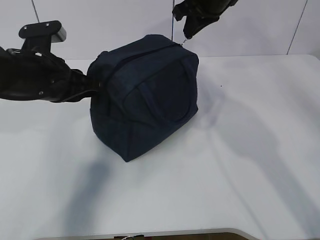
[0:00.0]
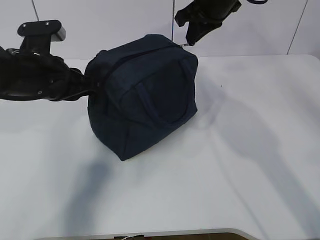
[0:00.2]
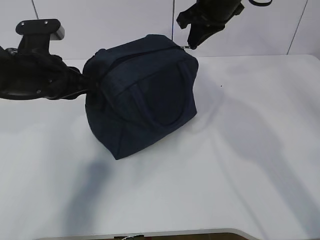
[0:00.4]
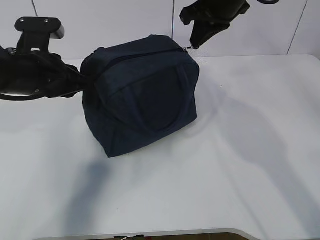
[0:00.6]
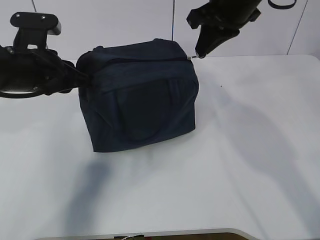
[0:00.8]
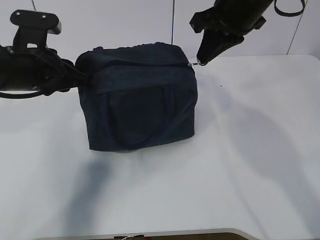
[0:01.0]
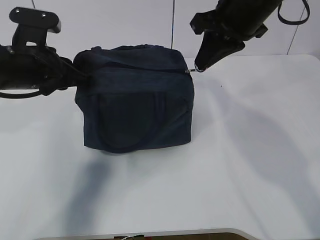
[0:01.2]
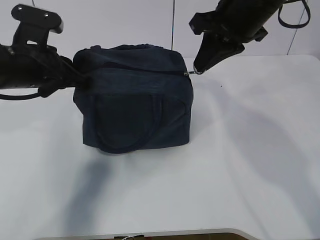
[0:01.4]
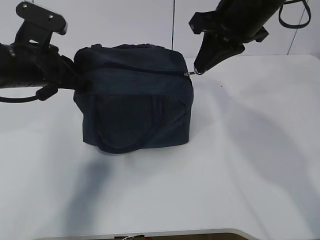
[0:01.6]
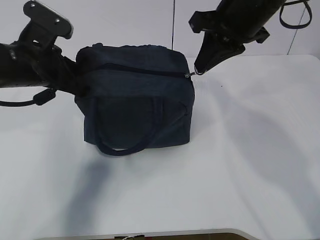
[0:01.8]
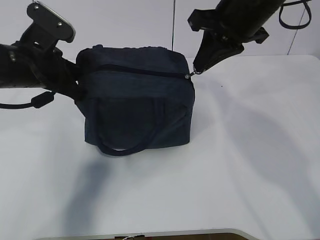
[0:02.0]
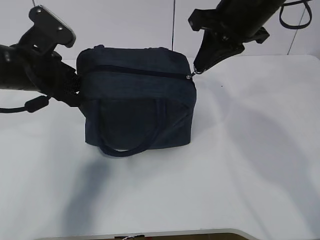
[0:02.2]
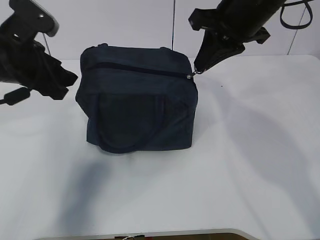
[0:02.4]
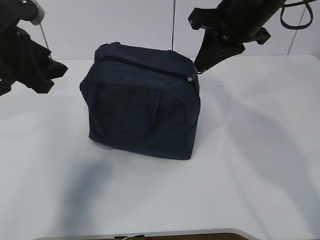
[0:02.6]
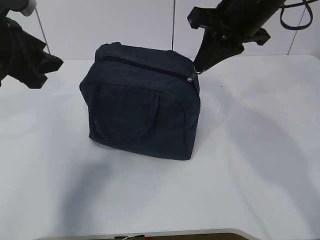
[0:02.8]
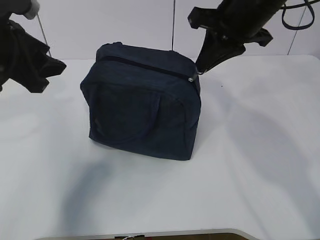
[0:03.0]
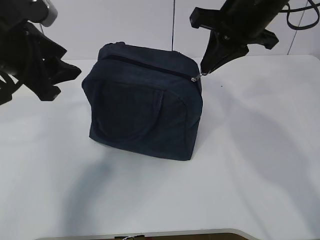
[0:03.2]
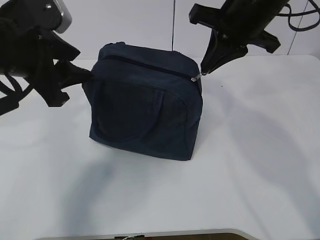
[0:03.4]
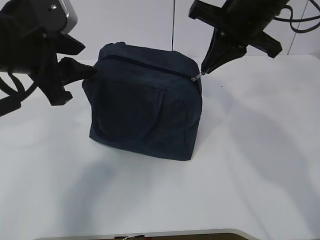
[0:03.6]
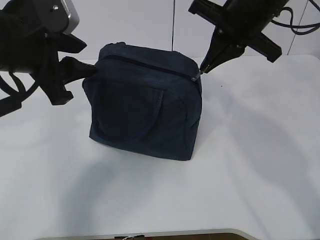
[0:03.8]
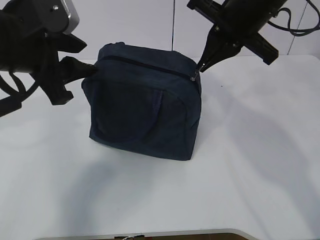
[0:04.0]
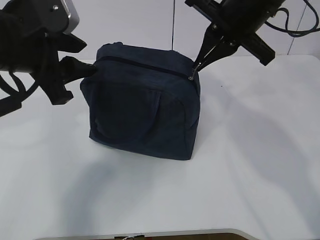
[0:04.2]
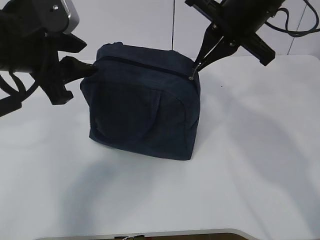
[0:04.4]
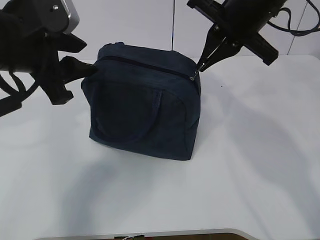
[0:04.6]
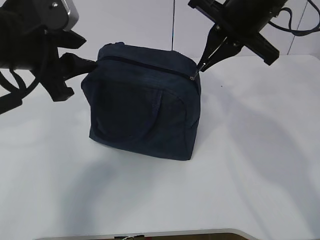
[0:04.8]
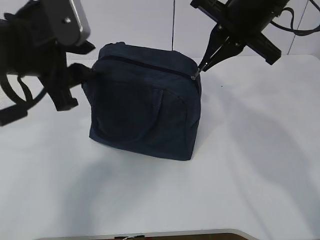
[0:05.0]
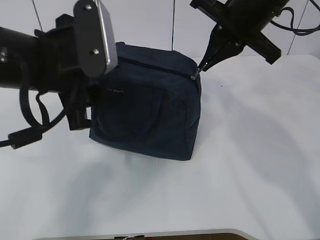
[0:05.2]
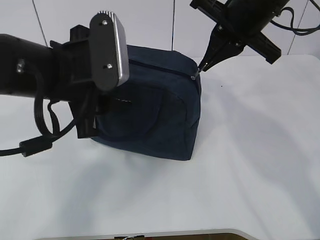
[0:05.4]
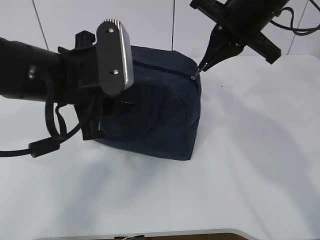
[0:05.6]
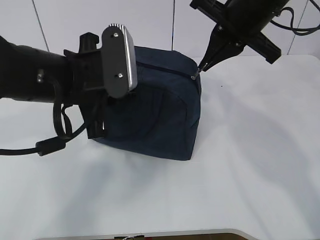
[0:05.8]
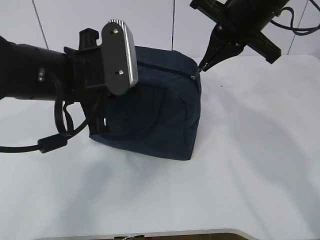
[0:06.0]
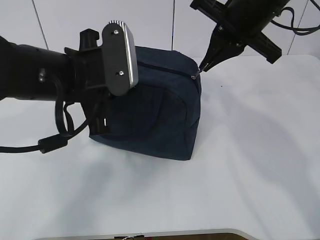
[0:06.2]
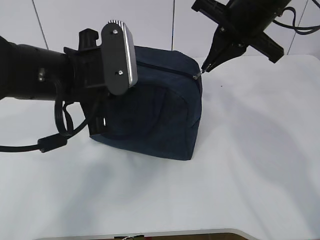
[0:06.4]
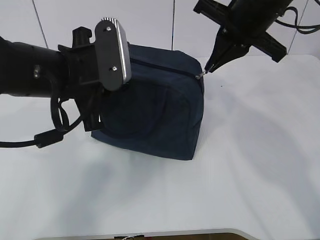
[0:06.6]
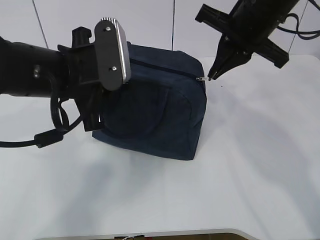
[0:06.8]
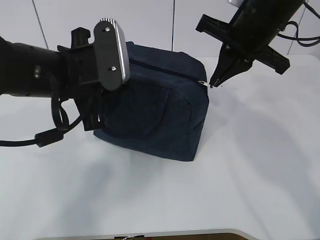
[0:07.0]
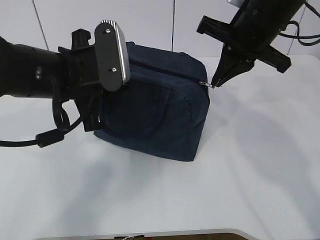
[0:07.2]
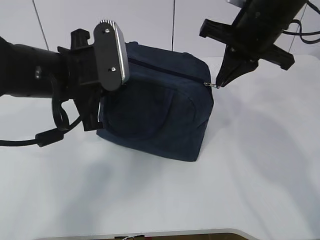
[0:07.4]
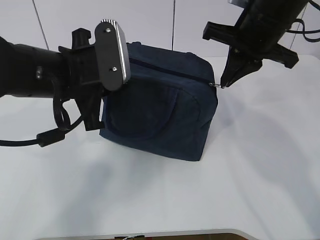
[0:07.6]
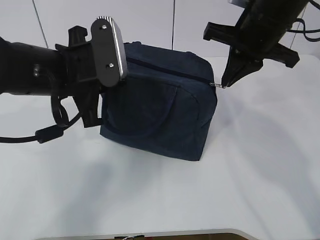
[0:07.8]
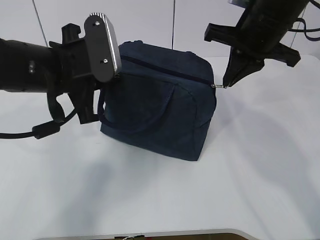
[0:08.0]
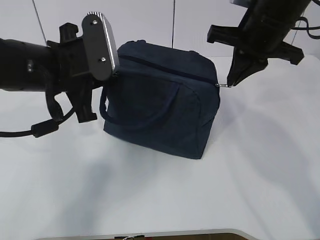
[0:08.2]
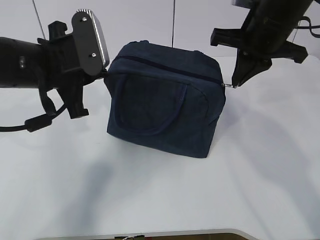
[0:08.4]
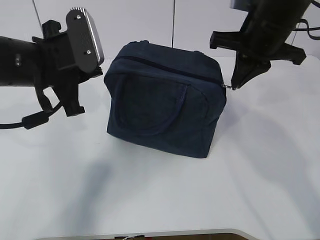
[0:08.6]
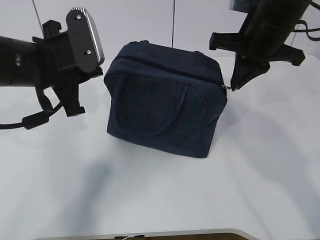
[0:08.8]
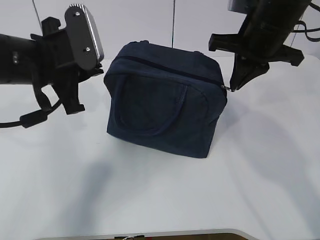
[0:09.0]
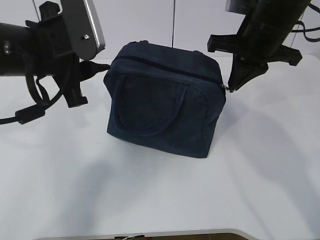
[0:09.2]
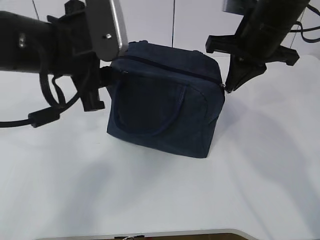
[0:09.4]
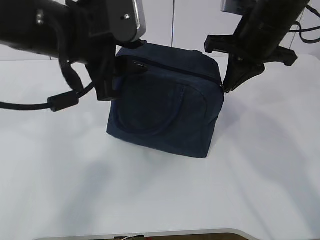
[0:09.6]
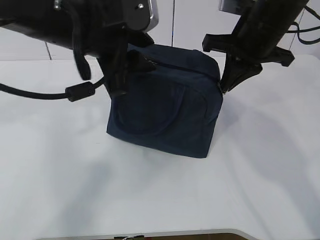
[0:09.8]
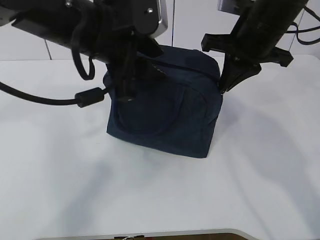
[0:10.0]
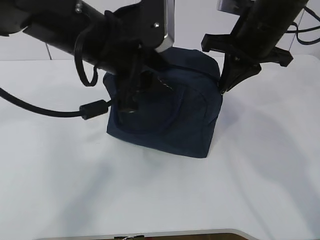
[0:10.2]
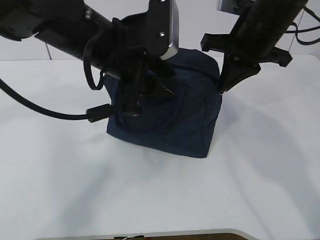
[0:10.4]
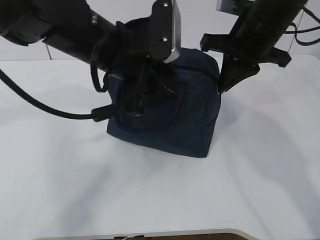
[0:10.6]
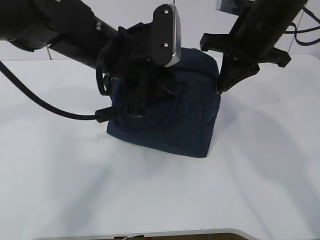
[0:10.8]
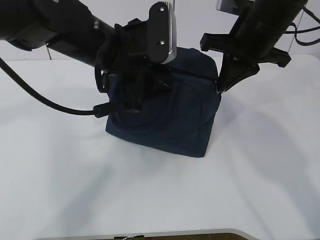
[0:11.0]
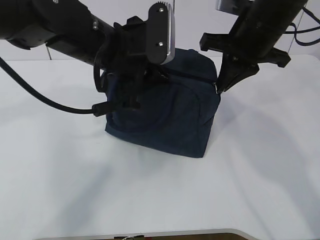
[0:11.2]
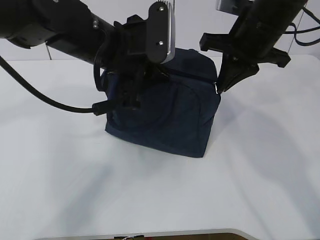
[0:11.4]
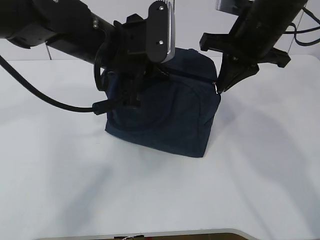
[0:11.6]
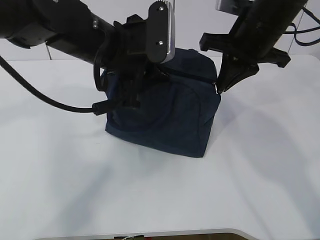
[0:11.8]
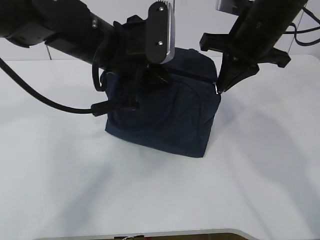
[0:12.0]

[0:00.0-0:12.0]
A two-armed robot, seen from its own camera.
Step, 0:02.0 to 0:02.6: Grab the lunch bag with your left hand.
0:00.0 to 0:01.6: The right gripper moves backward, approximately 10 cm.
0:01.6 to 0:03.0: The left gripper travels upward by some 5 cm, and opens up.
0:03.0 to 0:04.4: The left gripper moves roughly 5 cm.
0:04.4 to 0:06.0: The left gripper shifts some 5 cm to the right, and closes its fingers.
0:06.0 to 0:07.6: The grippers move only a little.
0:07.6 to 0:09.0: There are only small adjustments of the grippers.
0:09.0 to 0:10.4: The left gripper is displaced to the right by approximately 10 cm, and opens its fingers.
0:10.4 to 0:12.0: The left gripper closes and opens again.

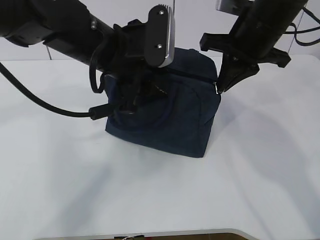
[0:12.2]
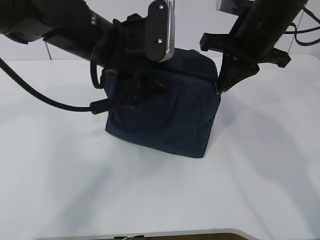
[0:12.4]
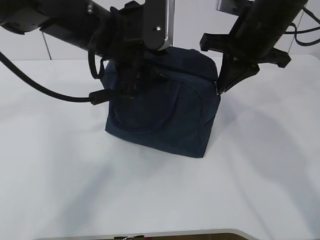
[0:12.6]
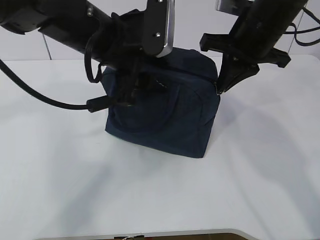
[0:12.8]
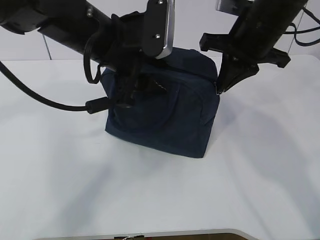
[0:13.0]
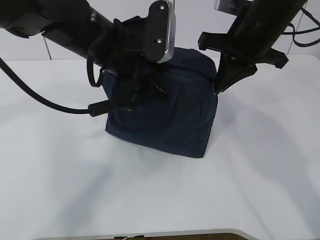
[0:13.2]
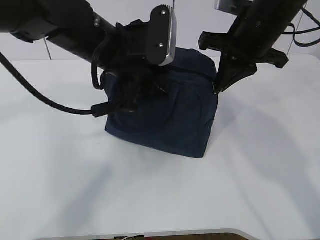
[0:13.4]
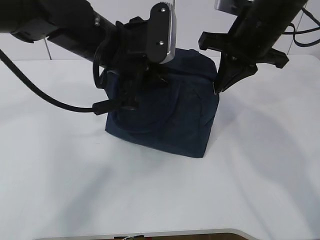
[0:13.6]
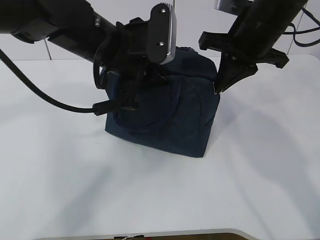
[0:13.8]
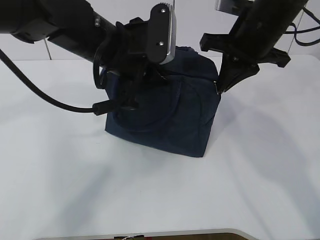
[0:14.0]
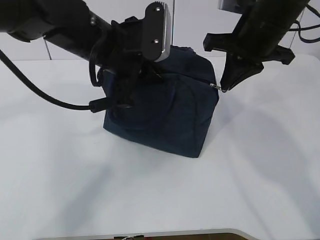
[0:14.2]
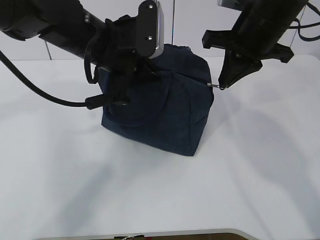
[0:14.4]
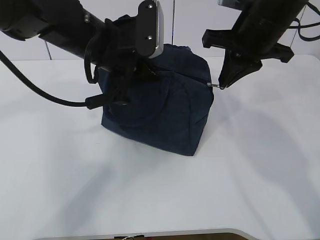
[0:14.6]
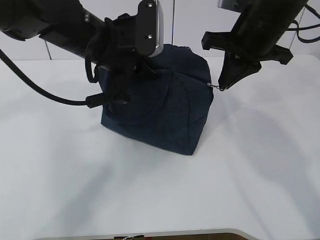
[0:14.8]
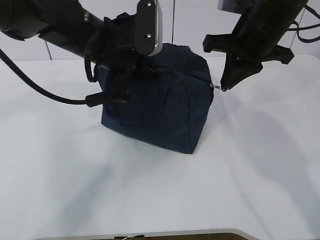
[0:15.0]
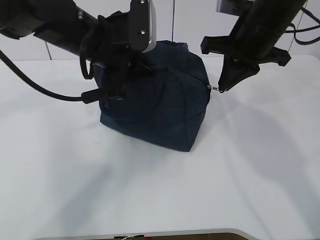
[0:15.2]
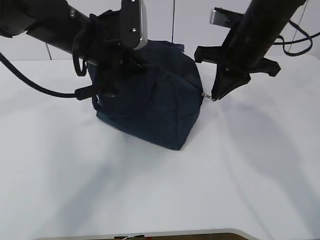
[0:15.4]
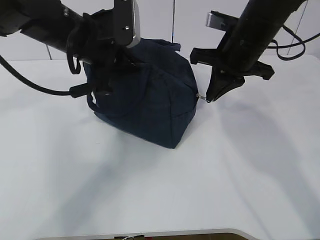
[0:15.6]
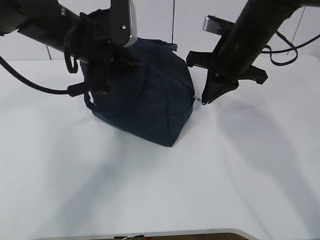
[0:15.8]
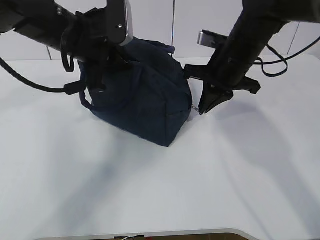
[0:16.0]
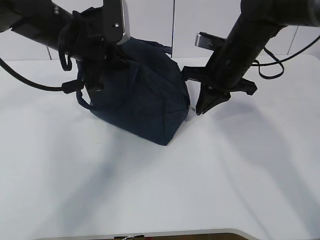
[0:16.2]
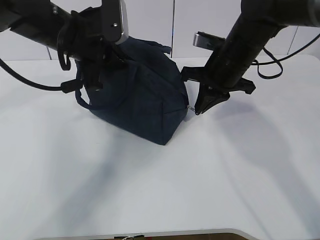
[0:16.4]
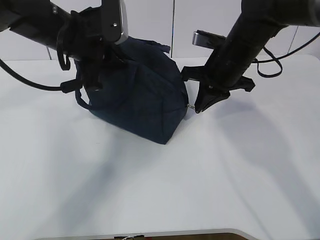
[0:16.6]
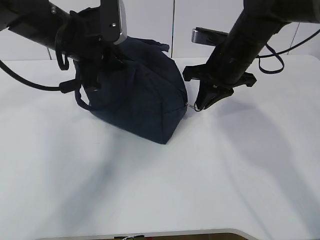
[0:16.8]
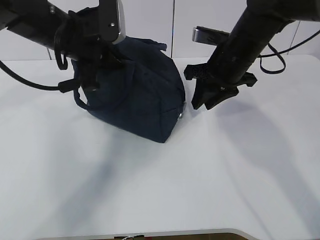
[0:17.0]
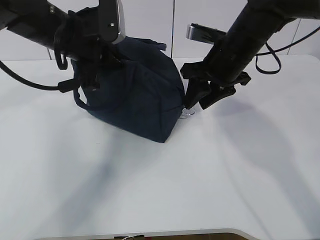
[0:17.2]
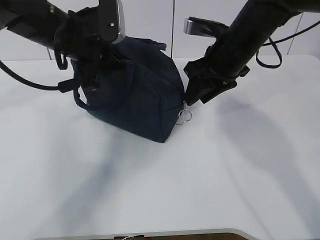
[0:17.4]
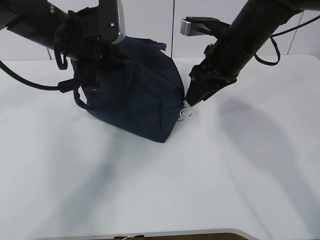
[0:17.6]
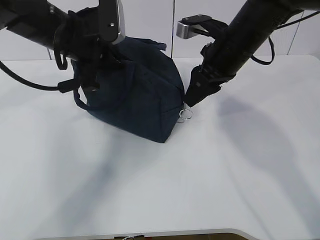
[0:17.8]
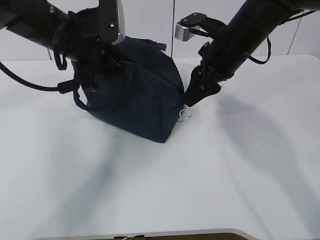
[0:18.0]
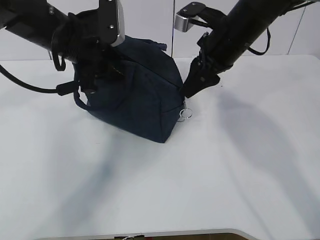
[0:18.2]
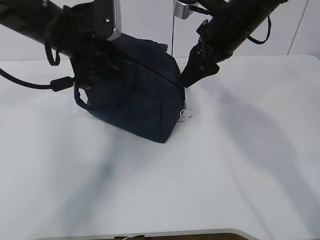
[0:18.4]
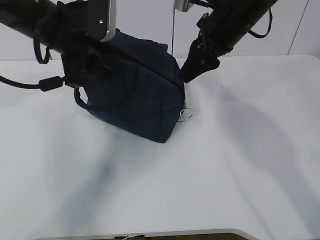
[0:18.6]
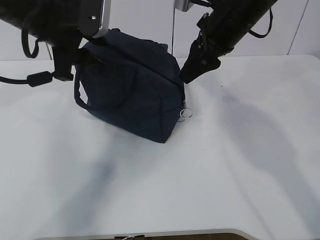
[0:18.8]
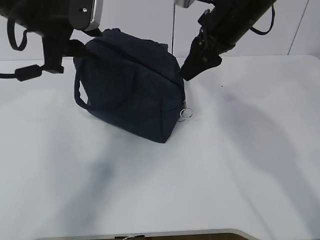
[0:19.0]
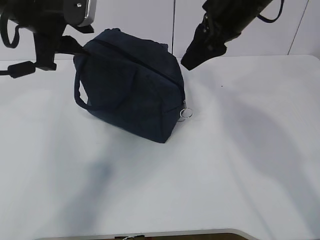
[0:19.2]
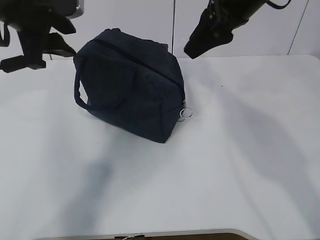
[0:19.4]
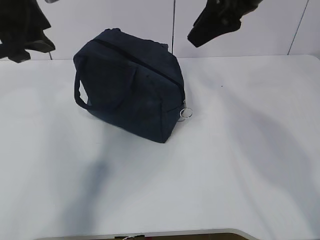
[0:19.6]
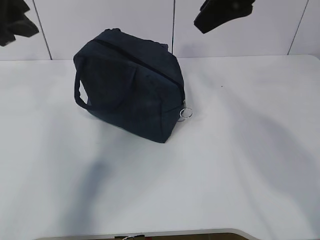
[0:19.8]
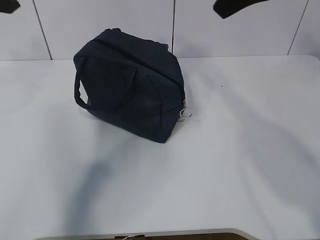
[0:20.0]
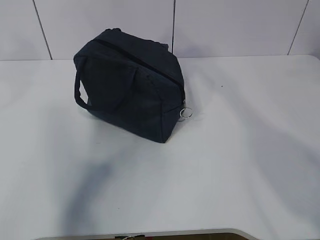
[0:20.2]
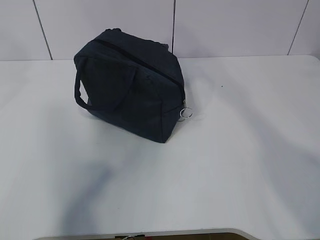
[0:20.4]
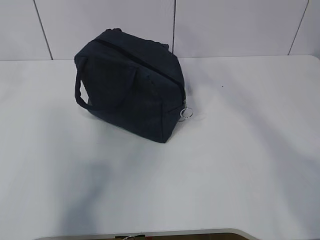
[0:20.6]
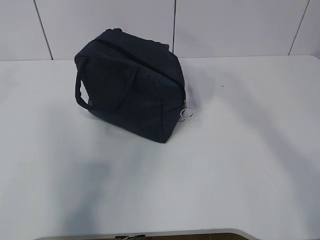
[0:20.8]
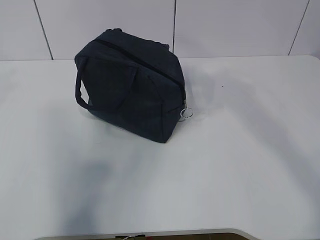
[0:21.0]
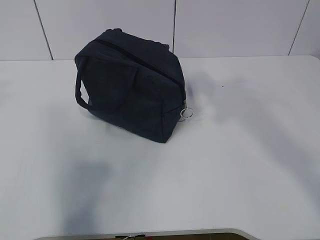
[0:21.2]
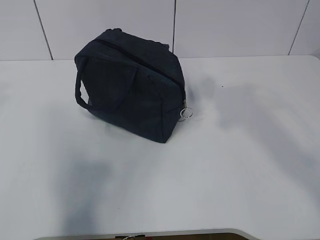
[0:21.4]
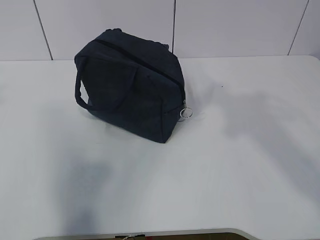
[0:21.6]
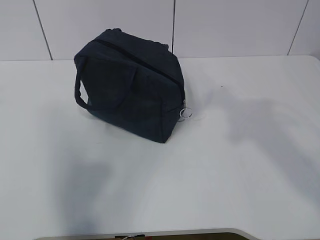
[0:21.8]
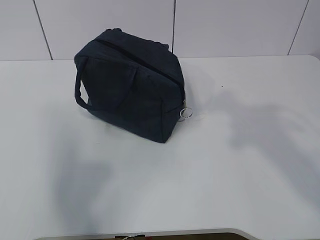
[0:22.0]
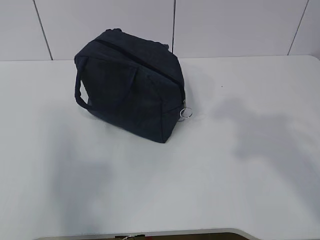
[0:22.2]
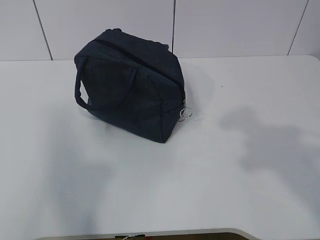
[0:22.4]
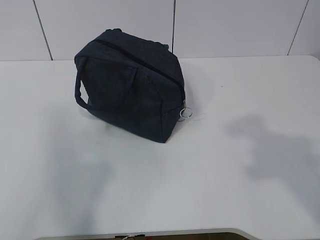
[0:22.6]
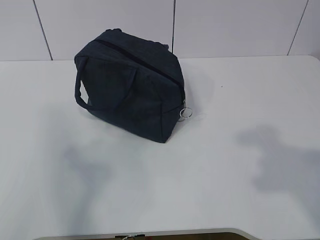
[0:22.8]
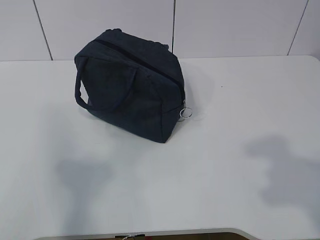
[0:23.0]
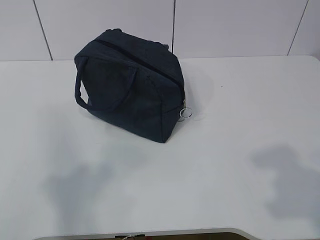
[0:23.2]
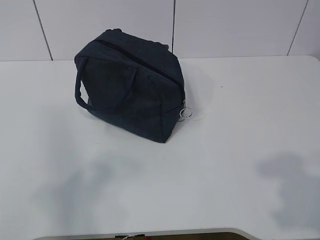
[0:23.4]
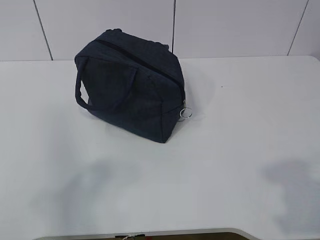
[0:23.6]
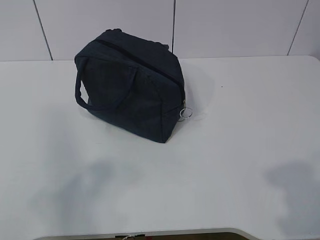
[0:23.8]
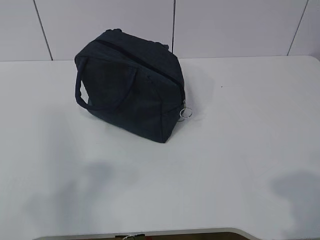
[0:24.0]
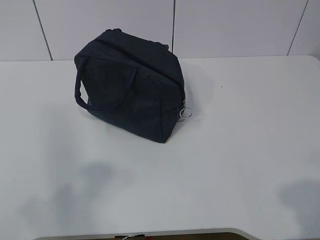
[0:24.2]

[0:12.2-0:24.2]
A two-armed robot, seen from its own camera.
0:12.2 to 0:13.8: The left gripper closes.
0:13.8 to 0:15.2: The grippers make only small movements.
0:15.2 to 0:16.6: The right gripper goes some 5 cm downward.
0:16.6 to 0:18.2: The right gripper opens its fingers. Meanwhile the left gripper opens.
0:18.2 to 0:19.8: The left gripper shifts roughly 15 cm upward and to the left, while the right gripper goes roughly 15 cm upward and backward.
0:19.8 to 0:21.2: The right gripper moves backward and to the right, some 20 cm, while the left gripper moves backward, upward and to the left, some 15 cm.
0:21.2 to 0:22.6: The left gripper shifts roughly 15 cm backward and downward.
0:22.6 to 0:24.2: The right gripper is displaced downward and backward by some 10 cm.
